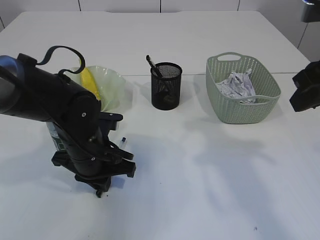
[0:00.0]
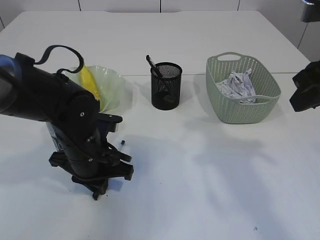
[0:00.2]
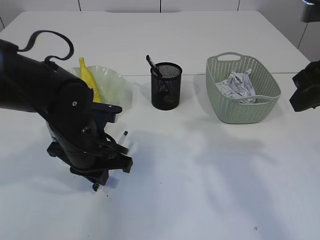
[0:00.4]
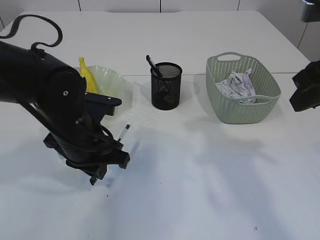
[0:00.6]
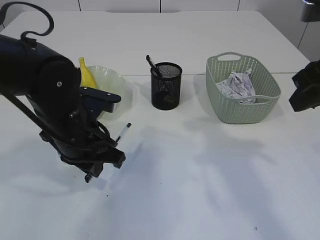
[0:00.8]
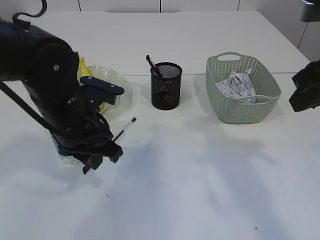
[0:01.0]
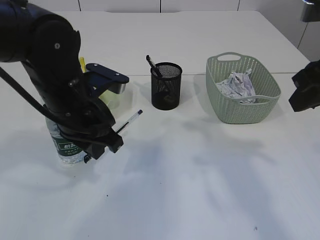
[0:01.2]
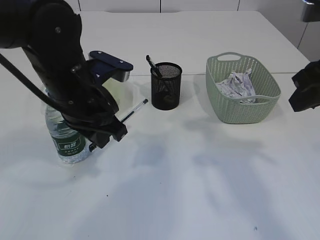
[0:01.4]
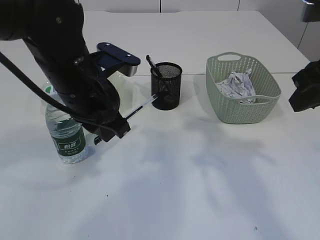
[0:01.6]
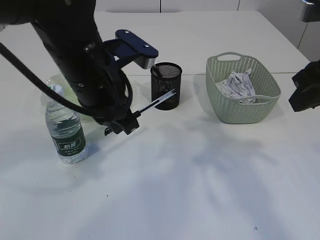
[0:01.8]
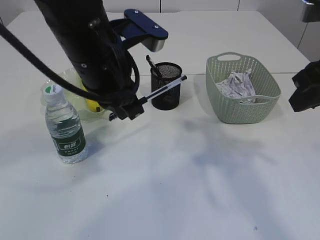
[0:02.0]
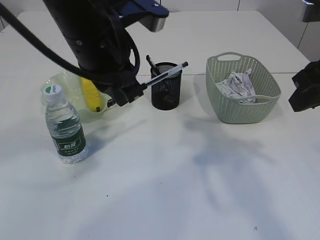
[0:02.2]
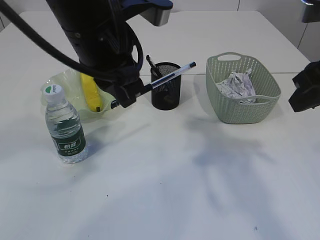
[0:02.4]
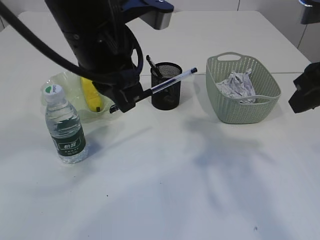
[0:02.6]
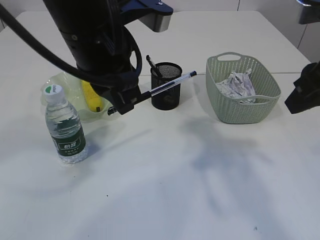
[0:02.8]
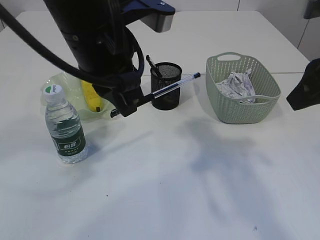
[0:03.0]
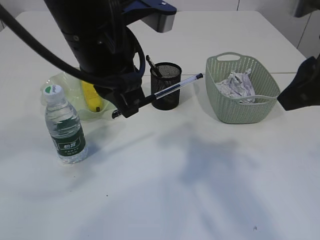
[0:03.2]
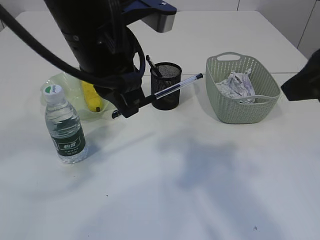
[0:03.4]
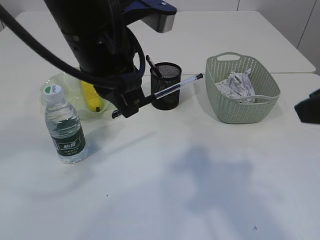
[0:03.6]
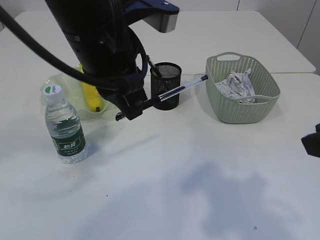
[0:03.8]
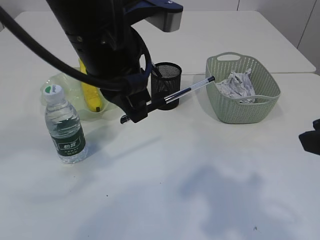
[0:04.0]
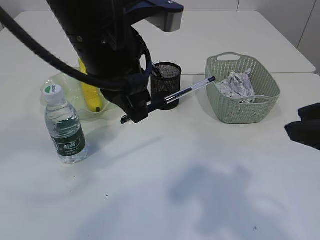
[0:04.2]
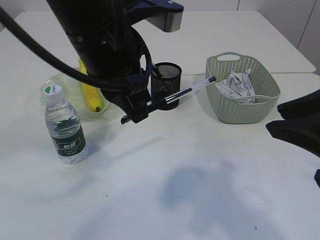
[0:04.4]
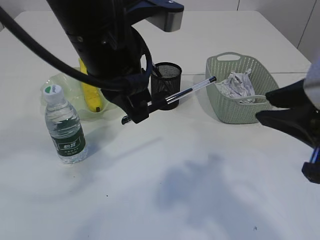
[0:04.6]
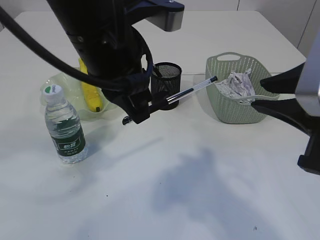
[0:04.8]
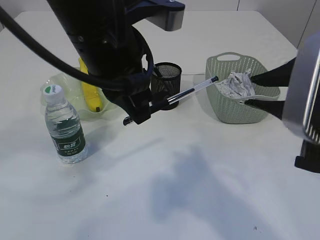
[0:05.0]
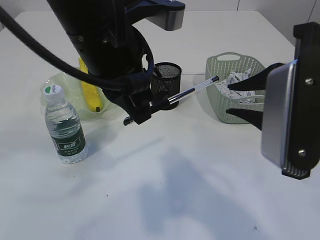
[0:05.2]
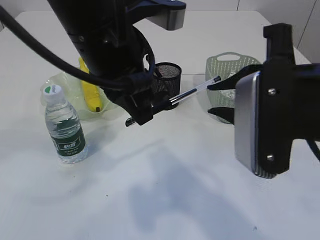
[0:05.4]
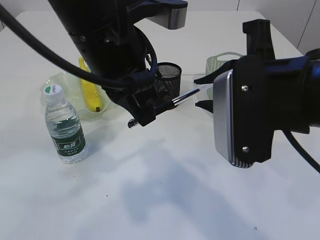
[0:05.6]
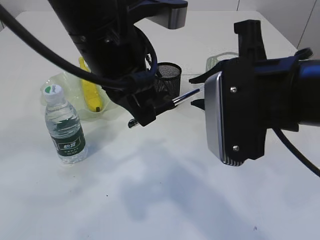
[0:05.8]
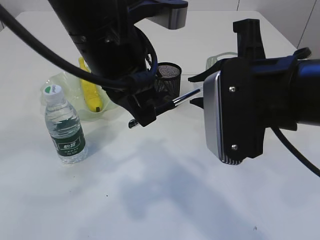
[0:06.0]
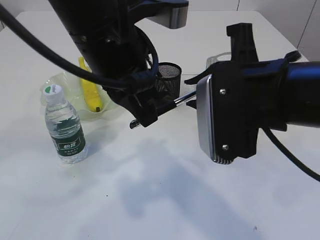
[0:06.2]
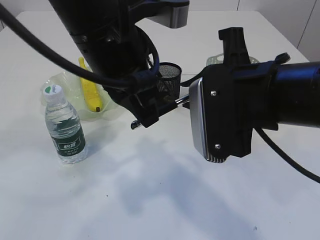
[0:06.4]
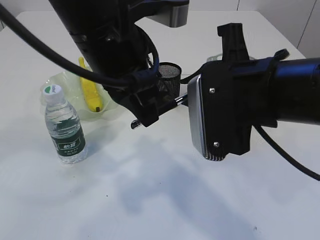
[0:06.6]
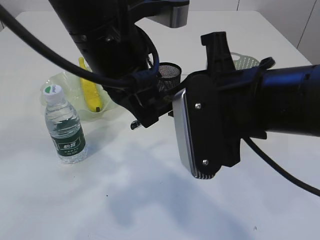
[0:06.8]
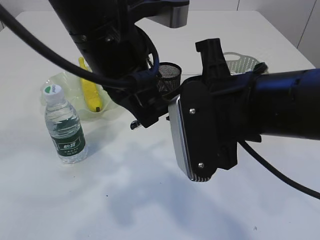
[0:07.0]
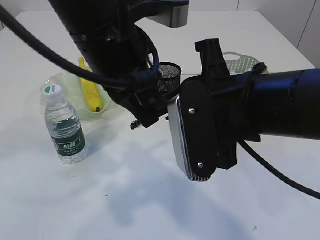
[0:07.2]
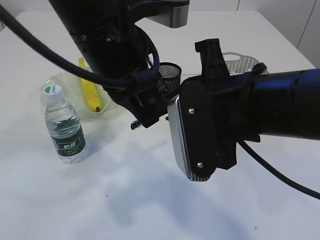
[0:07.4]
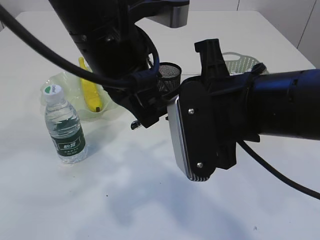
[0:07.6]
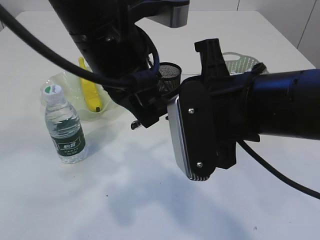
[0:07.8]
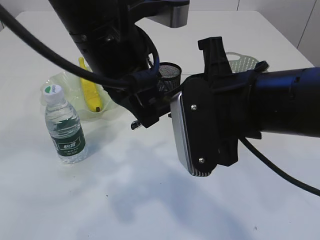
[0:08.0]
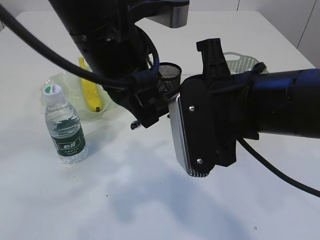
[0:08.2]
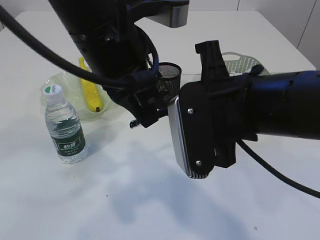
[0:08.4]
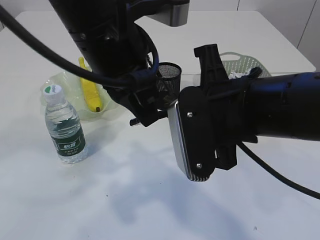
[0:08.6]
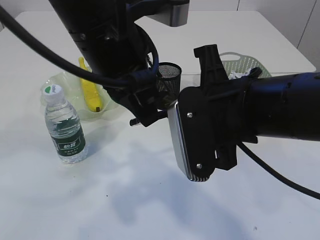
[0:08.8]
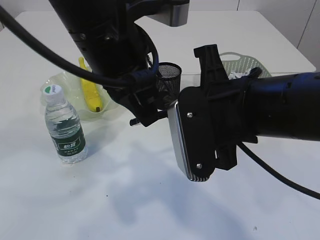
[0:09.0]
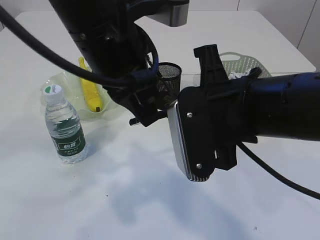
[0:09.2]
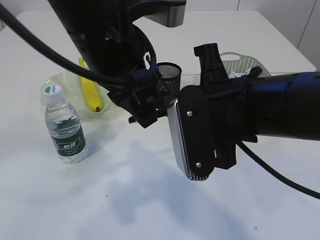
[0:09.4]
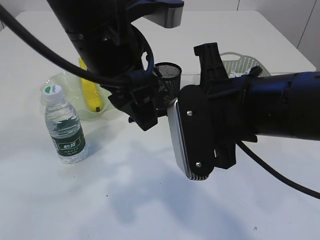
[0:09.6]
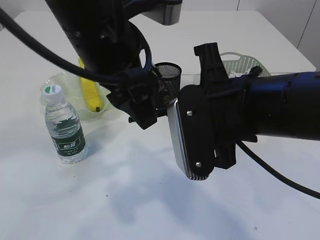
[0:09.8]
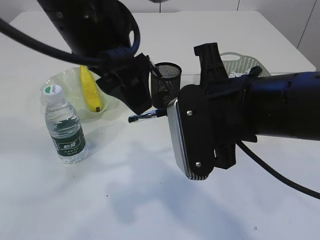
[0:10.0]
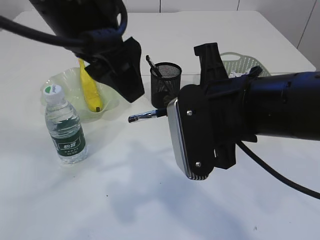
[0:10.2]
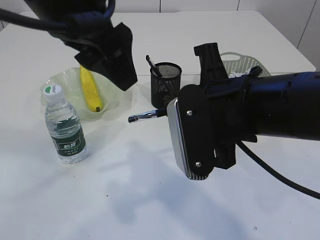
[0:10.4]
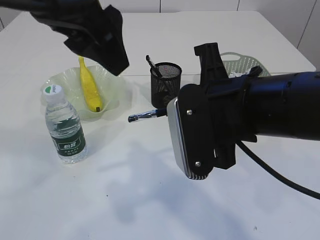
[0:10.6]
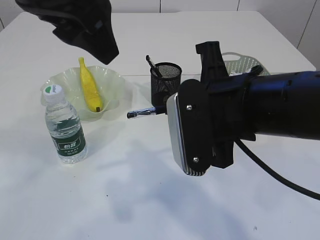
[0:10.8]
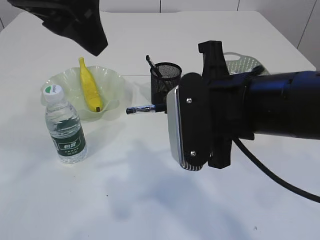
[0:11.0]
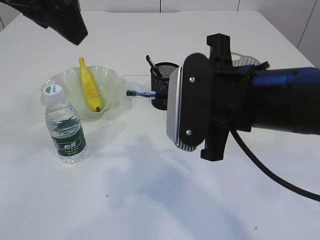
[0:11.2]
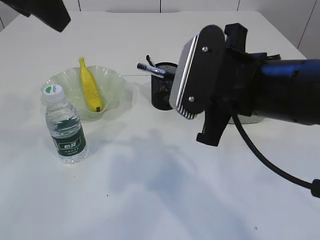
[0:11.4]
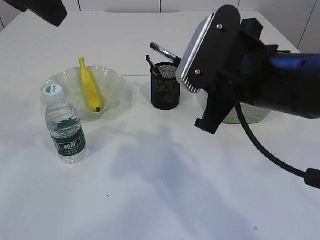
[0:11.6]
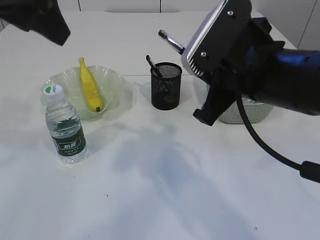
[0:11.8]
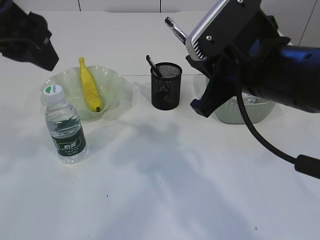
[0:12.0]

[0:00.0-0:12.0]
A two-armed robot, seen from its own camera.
Step, 0:01.2 to 0:10.4: transfer the pen to the right arm.
0:00.0 to 0:01.6: The left gripper is displaced upward by roughly 10 cm.
0:01.6 to 0:03.0: The left gripper heads upward, covering approximately 10 cm.
0:03.0 to 0:04.4: The right gripper heads backward, covering about 10 cm.
0:04.4 to 0:06.0: The right gripper is displaced to the left and forward by approximately 10 cm.
0:06.0 to 0:07.6: The grippers move only a little.
0:07.6 to 0:09.0: The two grippers keep their place.
0:09.0 to 0:10.4: The left gripper is displaced upward by approximately 5 cm, and opens its fingers.
0:10.4 to 0:12.0: The left gripper heads to the left, covering approximately 10 cm.

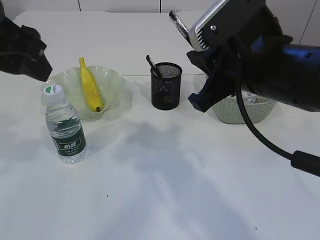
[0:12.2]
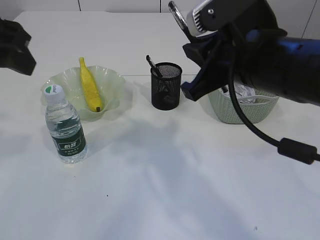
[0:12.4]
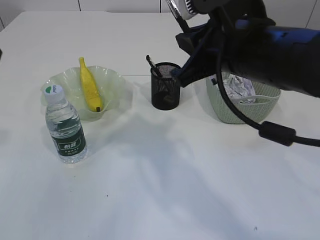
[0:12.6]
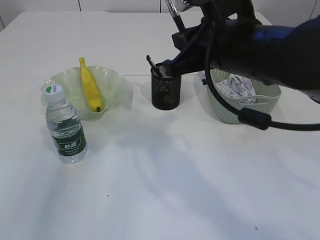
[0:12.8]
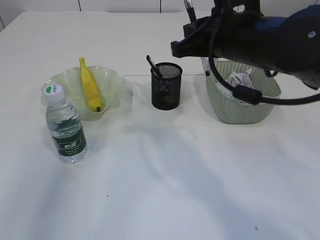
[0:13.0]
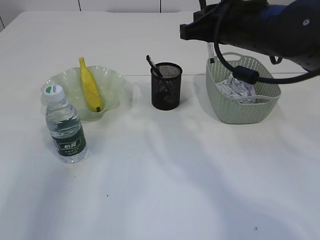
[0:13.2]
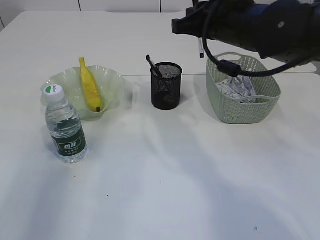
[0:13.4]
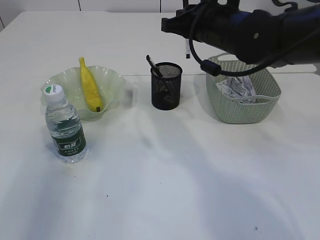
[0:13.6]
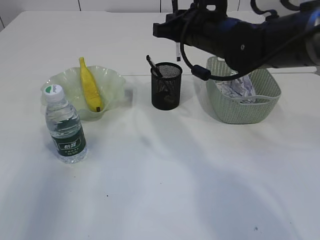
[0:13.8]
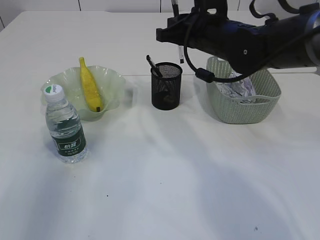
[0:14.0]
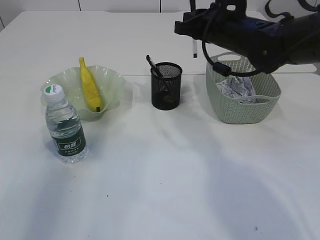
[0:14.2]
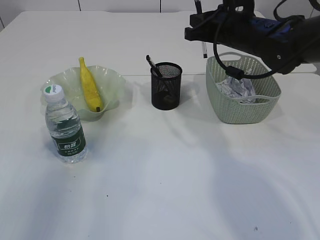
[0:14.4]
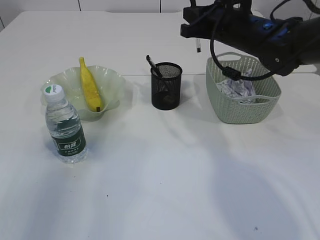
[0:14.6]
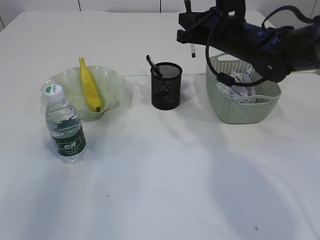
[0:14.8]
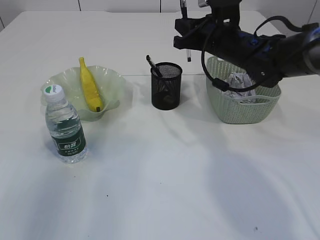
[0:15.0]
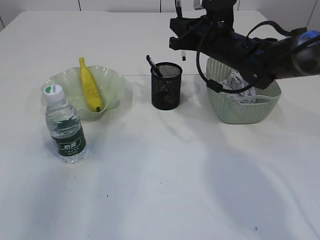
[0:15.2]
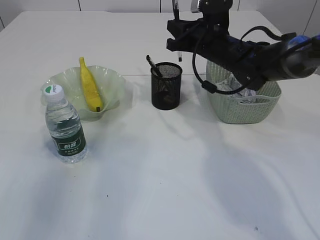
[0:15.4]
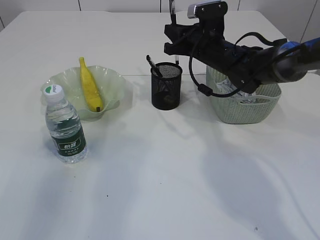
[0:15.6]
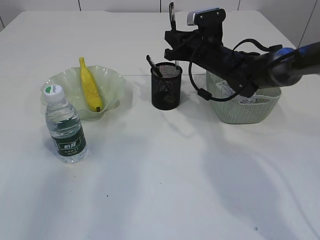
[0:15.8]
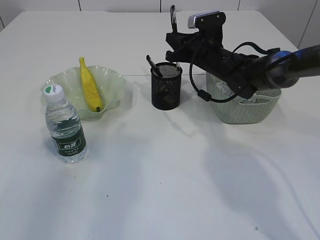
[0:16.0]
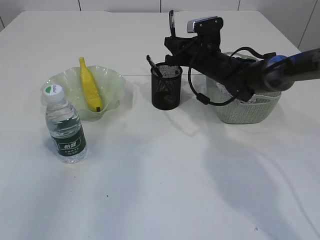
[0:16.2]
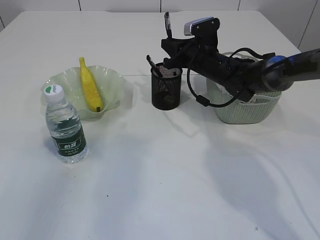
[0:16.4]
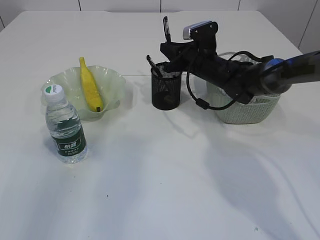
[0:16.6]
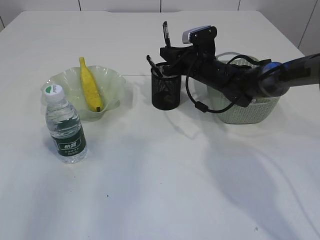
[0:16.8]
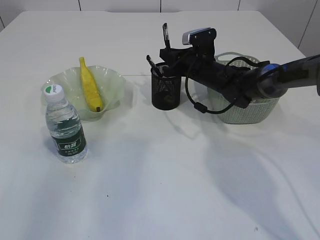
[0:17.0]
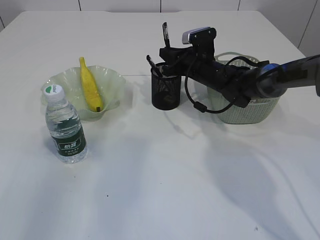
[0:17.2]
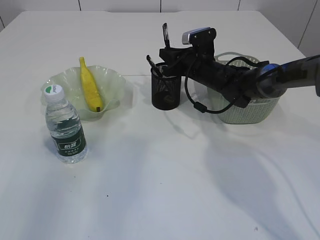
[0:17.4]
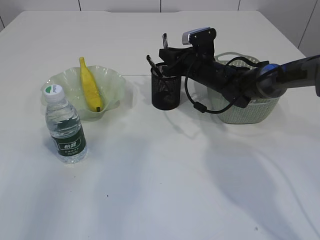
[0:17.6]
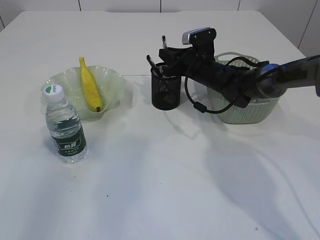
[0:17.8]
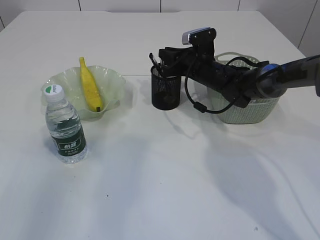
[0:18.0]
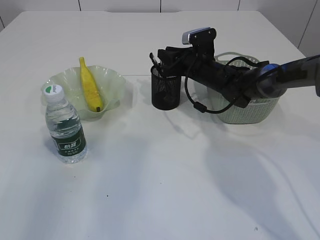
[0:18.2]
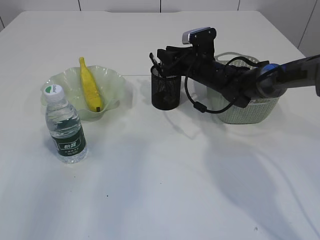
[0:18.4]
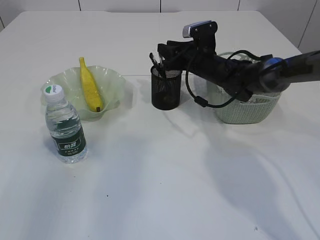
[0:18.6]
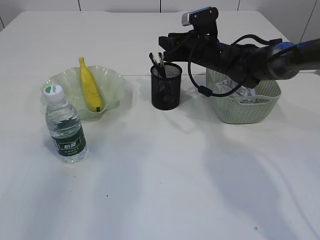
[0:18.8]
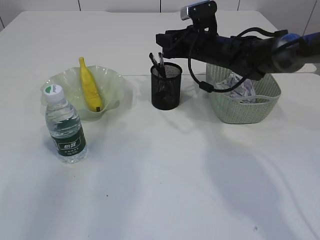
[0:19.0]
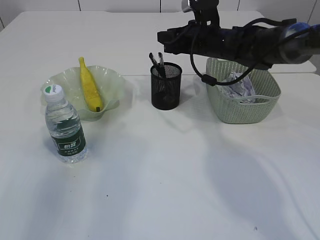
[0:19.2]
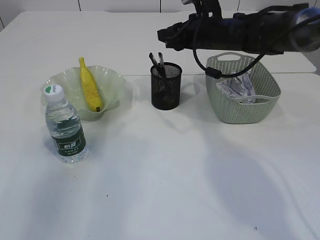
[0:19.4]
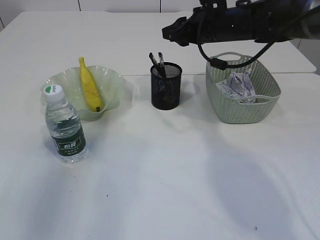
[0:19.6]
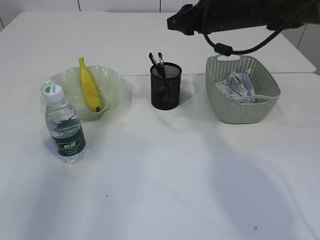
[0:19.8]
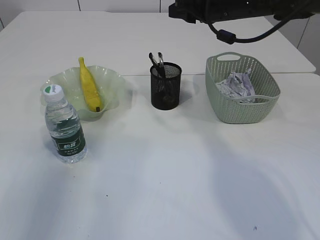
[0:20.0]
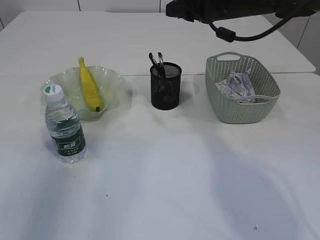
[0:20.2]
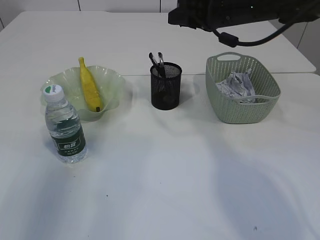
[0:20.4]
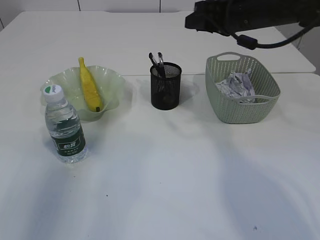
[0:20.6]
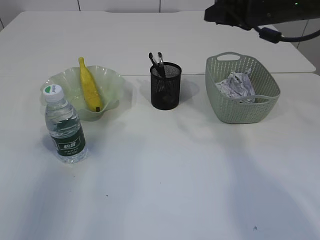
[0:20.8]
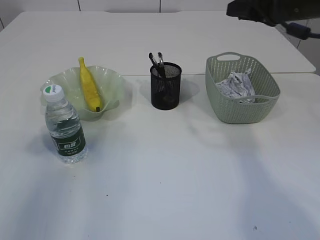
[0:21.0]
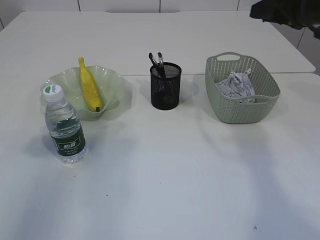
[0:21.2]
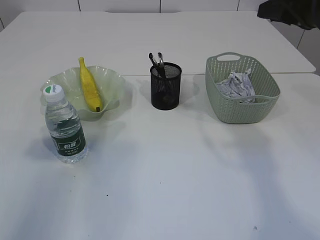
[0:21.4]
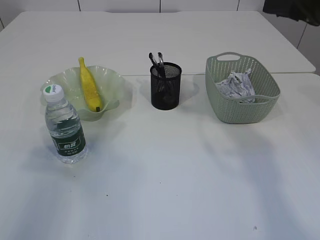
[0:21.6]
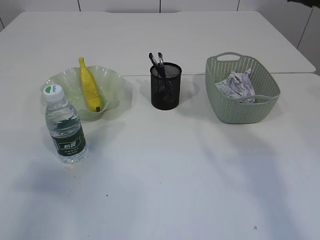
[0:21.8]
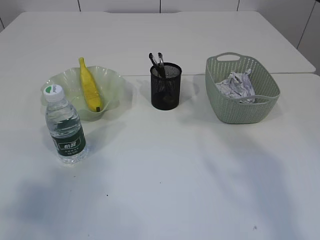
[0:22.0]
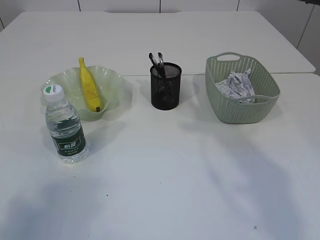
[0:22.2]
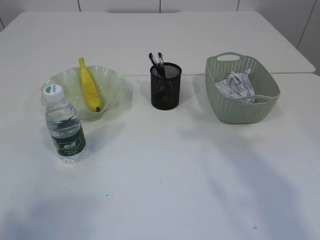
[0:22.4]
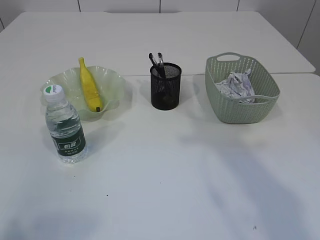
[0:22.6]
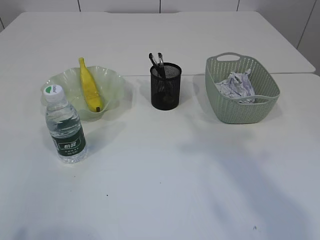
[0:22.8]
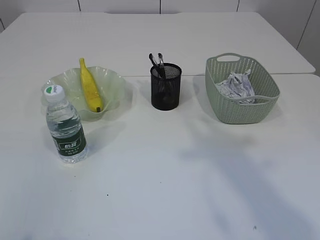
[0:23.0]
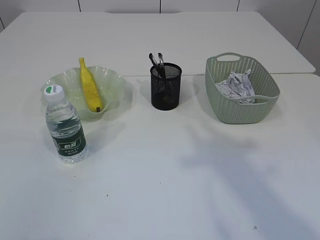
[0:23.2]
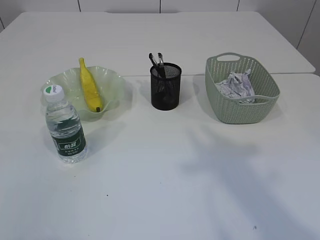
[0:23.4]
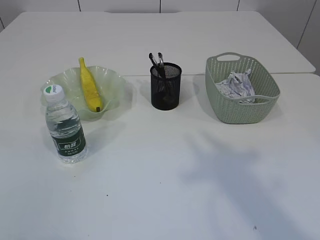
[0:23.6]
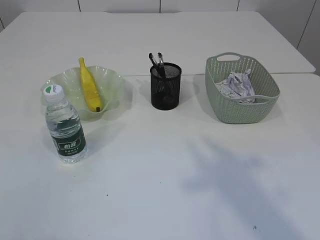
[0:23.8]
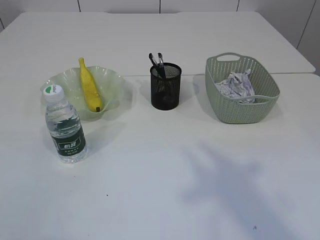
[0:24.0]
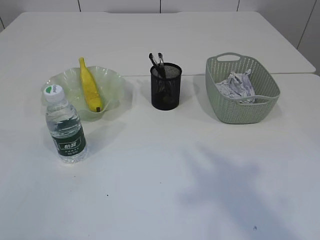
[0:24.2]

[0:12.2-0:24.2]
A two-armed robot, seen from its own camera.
Step, 0:12.2 to 0:18.8: Place the pen into the pen holder.
0:12.2 to 0:13.8: The left gripper is displaced to the left by approximately 10 cm. The right gripper moves forward, some 15 cm.
0:13.8 to 0:15.2: The right gripper heads forward, covering some 5 cm.
0:15.2 to 0:16.6: The right gripper travels downward by about 5 cm.
0:16.6 to 0:18.2: The grippers stay close to where they were, moving slightly.
0:18.2 to 0:19.8: The right gripper travels upward by some 15 cm.
0:19.8 to 0:21.2: The right gripper shifts approximately 15 cm to the right and backward.
0:21.2 to 0:22.6: The left gripper moves backward, roughly 20 cm, while the right gripper goes approximately 15 cm backward and upward.
